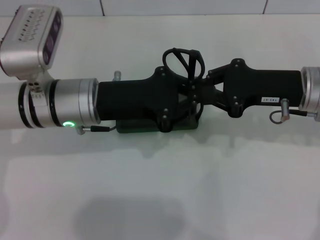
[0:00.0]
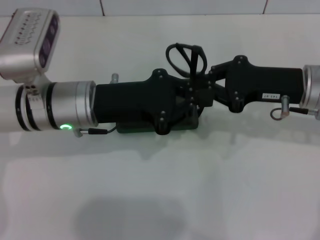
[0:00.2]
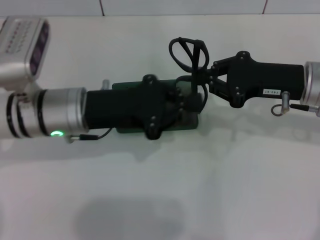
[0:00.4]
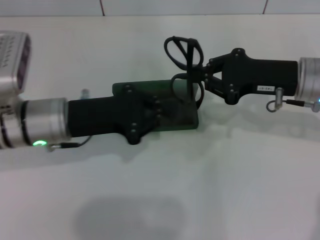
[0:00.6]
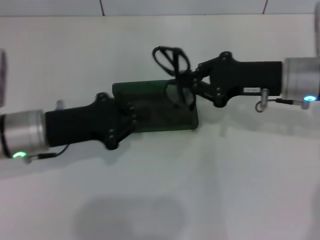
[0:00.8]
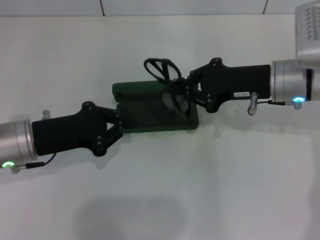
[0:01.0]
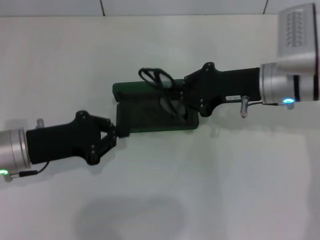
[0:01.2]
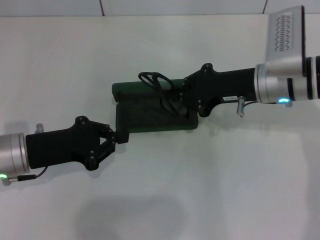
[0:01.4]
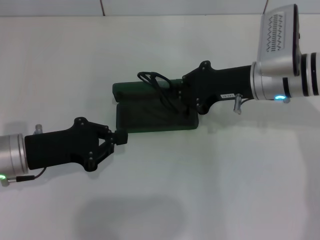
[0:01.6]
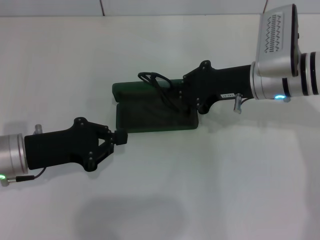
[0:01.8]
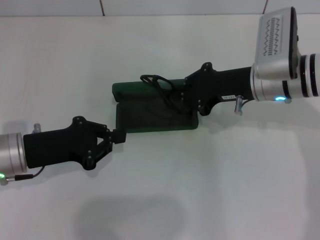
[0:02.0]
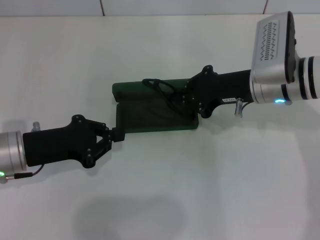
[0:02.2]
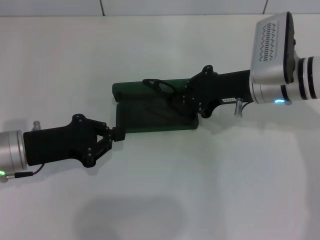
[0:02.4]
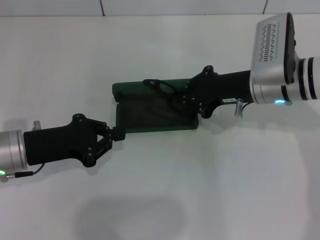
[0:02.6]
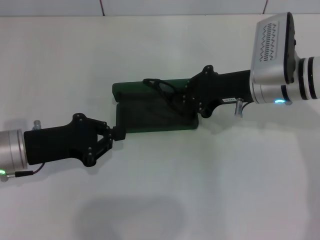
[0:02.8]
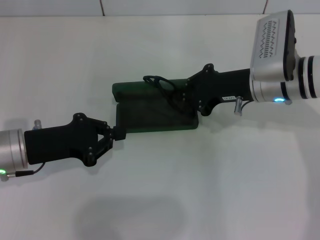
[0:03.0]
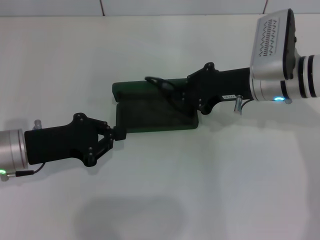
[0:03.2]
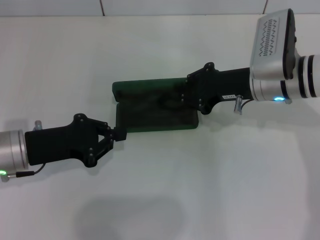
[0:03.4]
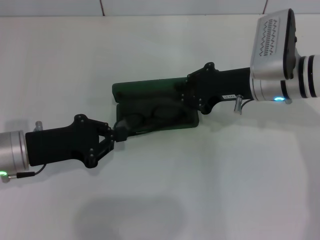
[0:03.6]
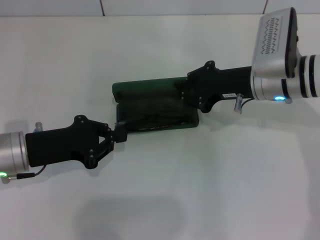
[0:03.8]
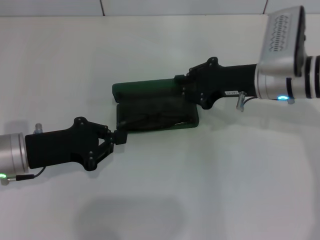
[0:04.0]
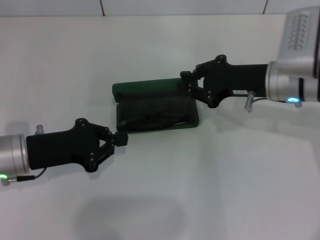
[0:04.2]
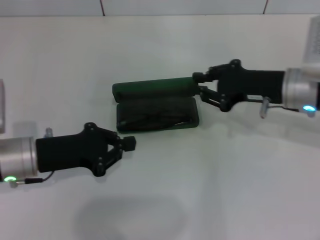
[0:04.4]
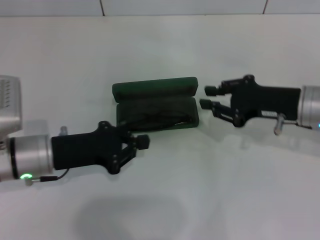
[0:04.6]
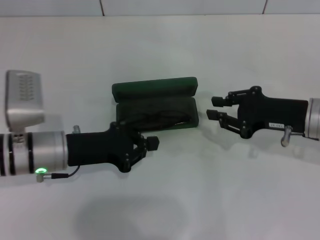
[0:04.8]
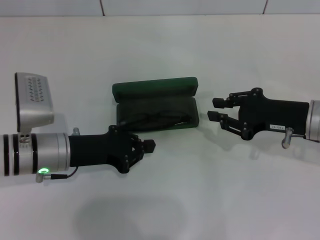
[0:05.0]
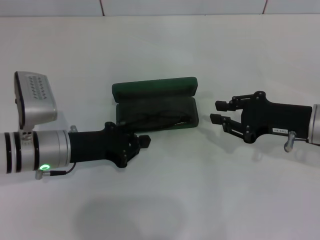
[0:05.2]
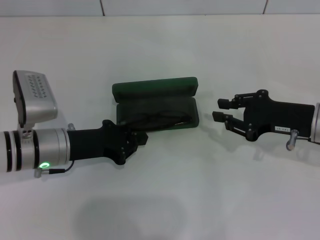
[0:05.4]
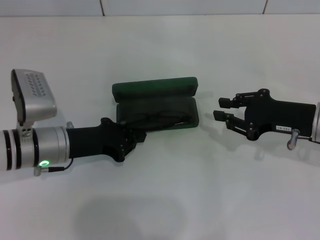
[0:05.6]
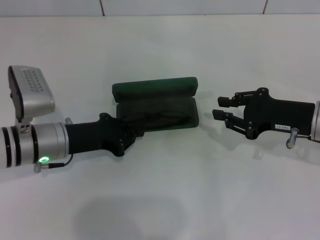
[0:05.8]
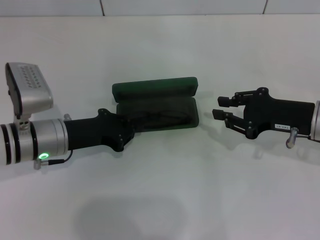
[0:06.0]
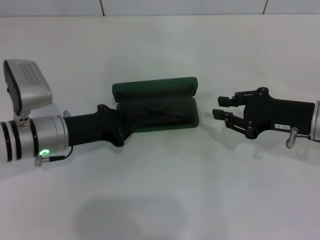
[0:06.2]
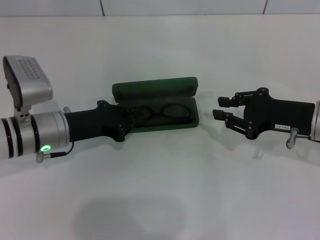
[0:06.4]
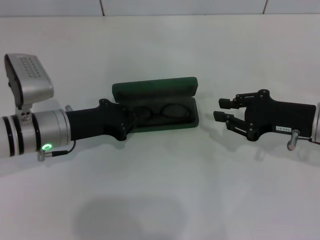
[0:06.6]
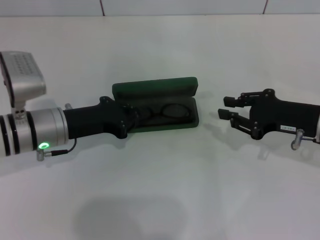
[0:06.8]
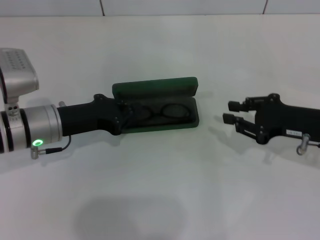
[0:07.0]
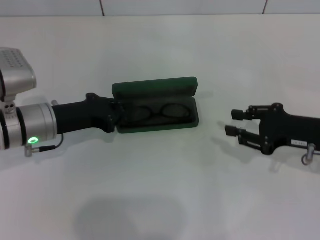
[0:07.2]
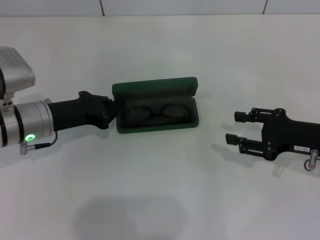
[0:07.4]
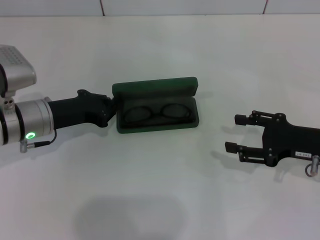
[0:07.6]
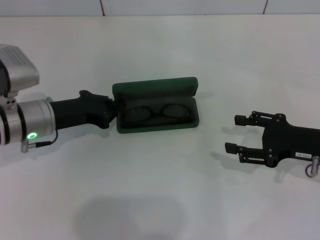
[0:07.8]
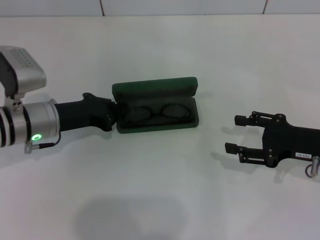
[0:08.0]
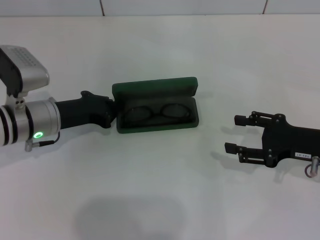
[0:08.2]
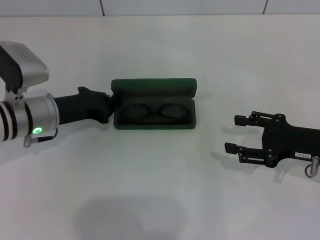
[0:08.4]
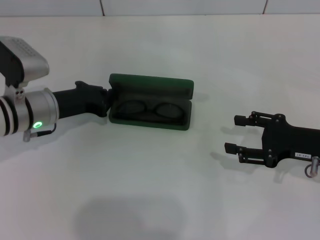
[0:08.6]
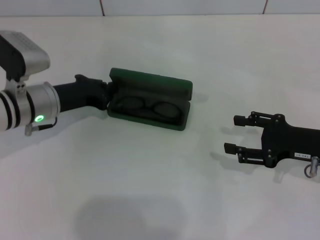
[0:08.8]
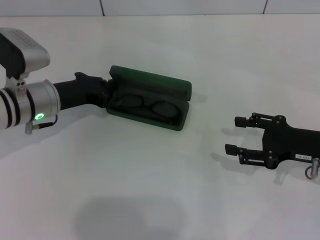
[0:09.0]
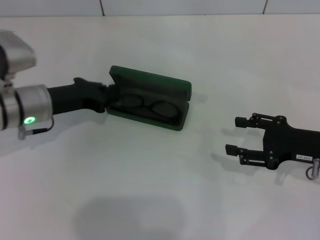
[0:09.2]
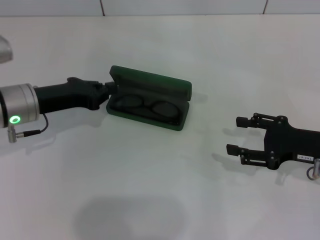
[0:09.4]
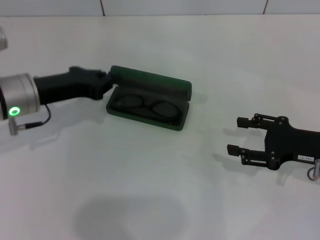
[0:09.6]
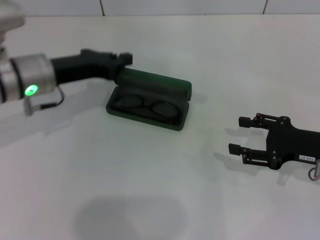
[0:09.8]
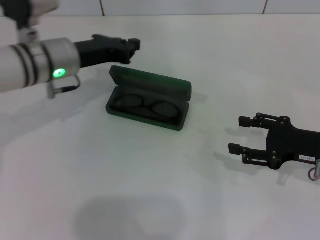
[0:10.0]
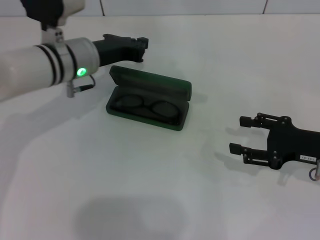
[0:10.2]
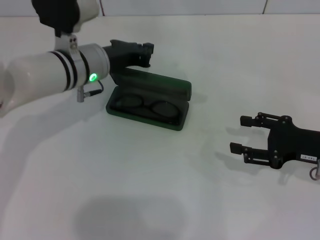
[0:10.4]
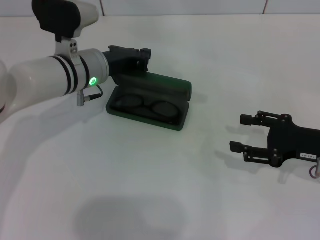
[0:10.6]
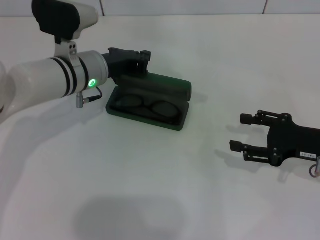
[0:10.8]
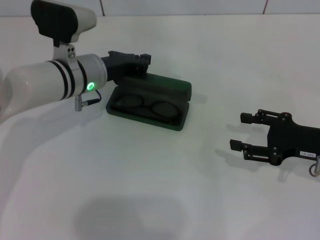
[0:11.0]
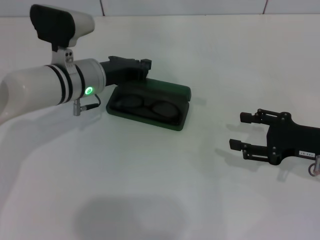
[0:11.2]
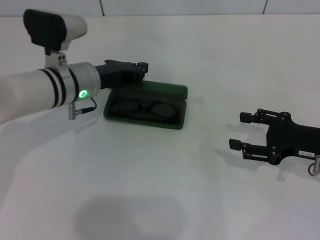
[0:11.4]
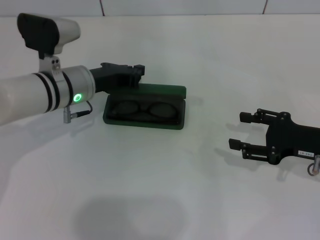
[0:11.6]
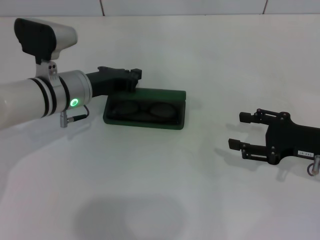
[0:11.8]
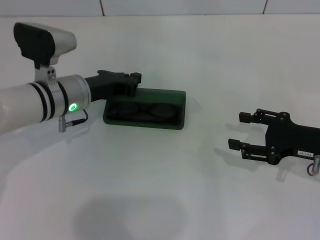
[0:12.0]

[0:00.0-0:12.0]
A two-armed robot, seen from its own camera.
Step, 0:00.2 to 0:04.2: Put the glasses into the case with your right hand.
0:00.0 to 0:01.6: The right gripper is displaced to the left by approximately 5 cm. Meanwhile the left gripper travels to the left, downward and backward by approximately 15 cm.
0:01.6 to 0:03.0: The two grippers keep their place.
0:03.0 to 0:04.4: The grippers move only a little.
0:04.4 to 0:06.0: The right gripper shifts by about 5 cm.
0:06.0 to 0:07.6: The right gripper opens.
0:07.6 to 0:09.0: There are only small adjustments of the grippers.
0:09.0 to 0:10.4: The left gripper moves to the right, approximately 10 cm.
0:10.4 to 0:12.0: The left gripper changes place by roughly 5 cm.

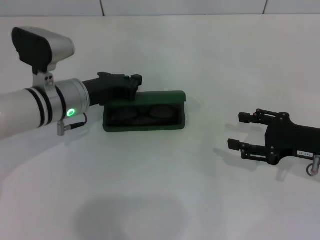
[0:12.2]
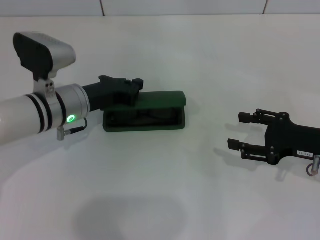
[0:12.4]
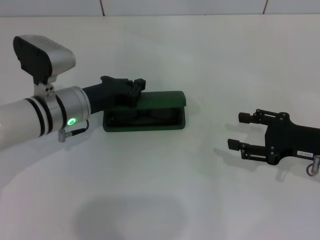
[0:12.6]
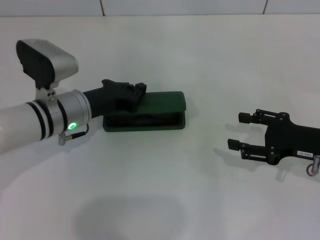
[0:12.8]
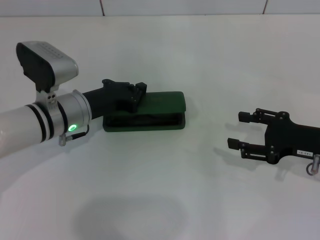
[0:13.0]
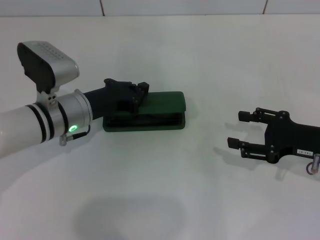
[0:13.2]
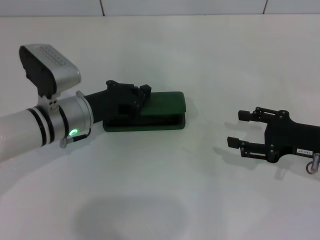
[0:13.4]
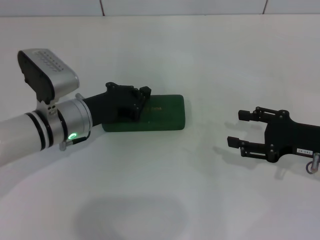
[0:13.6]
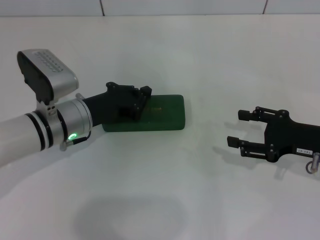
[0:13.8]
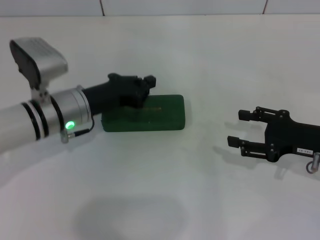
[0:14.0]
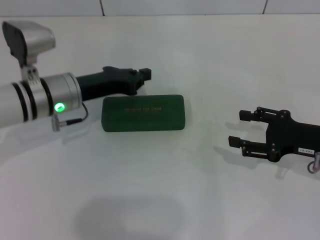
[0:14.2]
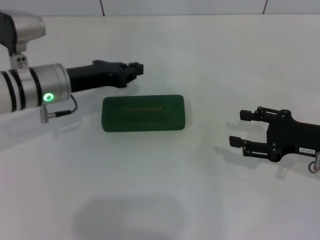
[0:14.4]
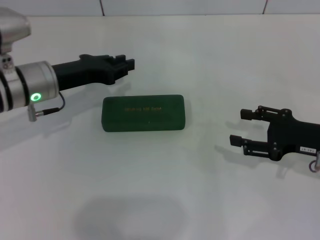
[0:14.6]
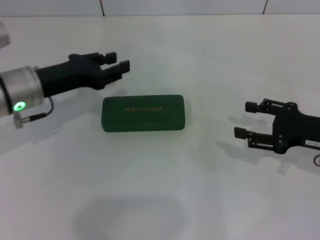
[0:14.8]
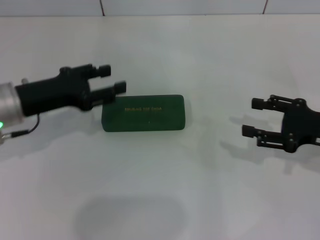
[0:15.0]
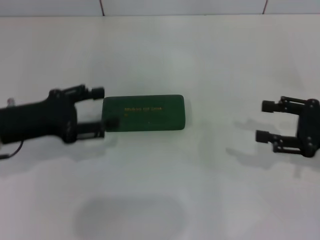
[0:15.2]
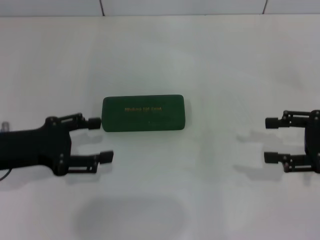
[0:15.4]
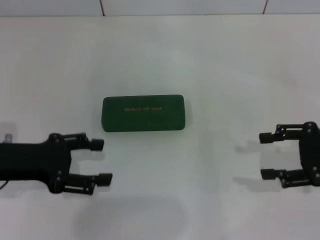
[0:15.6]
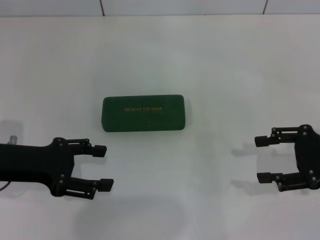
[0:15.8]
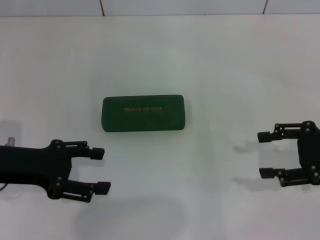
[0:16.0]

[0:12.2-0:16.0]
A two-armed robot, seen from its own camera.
0:12.2 to 0:13.4: The grippers make only small movements.
0:13.4 to 0:14.8: The left gripper shifts about 10 cm to the left and upward.
0:14.8 to 0:16.0: The left gripper travels backward by some 10 cm, and opens up.

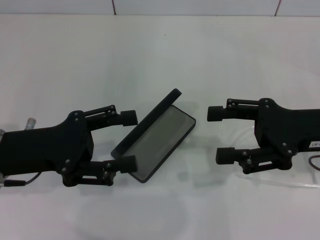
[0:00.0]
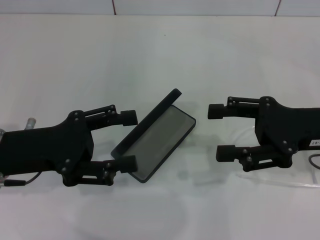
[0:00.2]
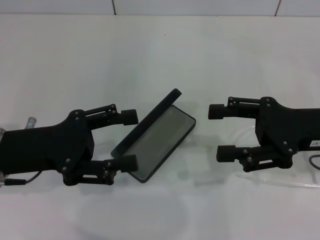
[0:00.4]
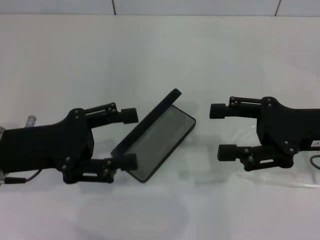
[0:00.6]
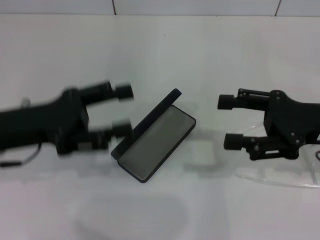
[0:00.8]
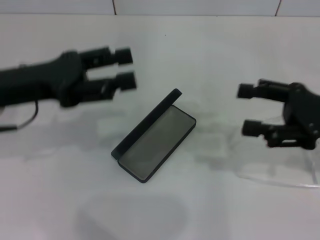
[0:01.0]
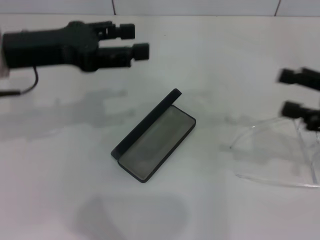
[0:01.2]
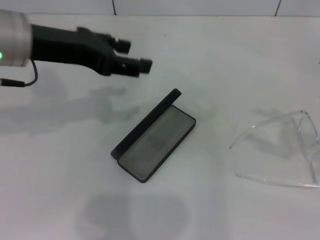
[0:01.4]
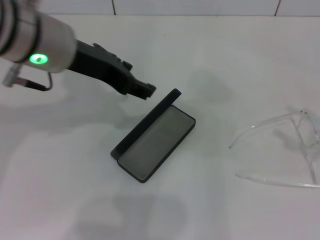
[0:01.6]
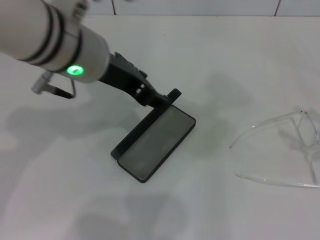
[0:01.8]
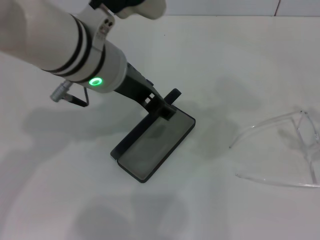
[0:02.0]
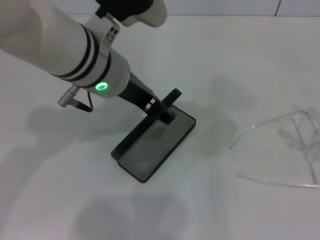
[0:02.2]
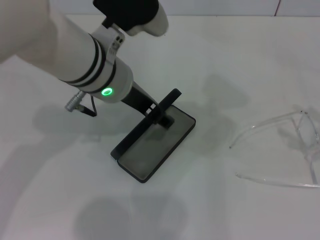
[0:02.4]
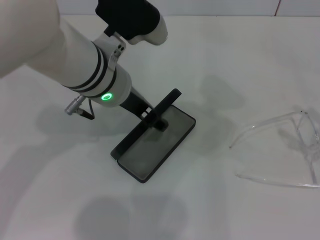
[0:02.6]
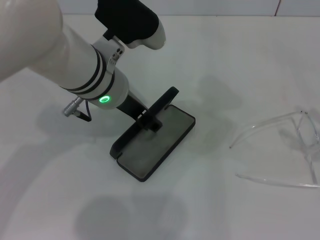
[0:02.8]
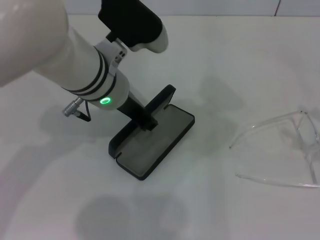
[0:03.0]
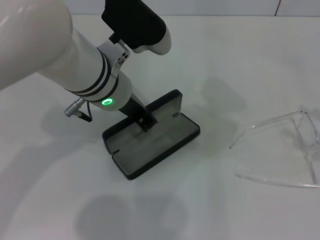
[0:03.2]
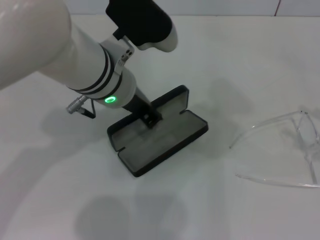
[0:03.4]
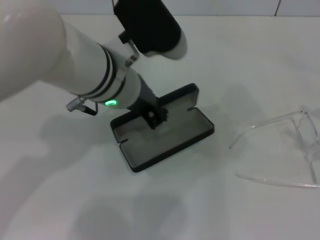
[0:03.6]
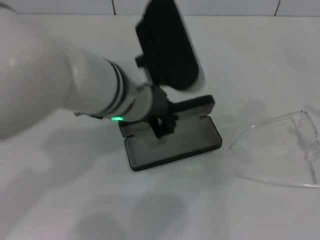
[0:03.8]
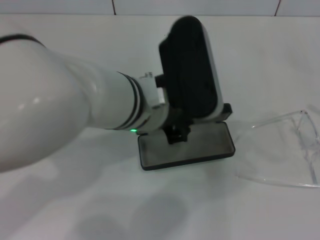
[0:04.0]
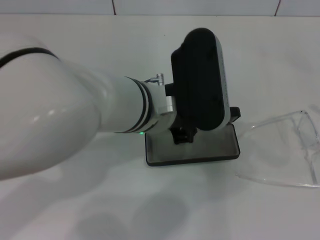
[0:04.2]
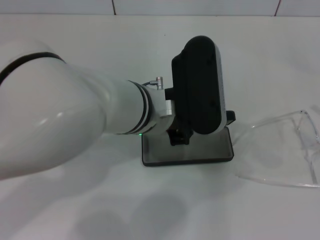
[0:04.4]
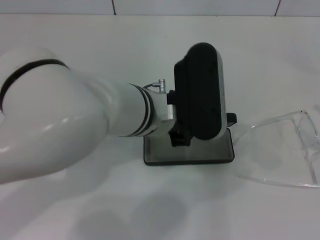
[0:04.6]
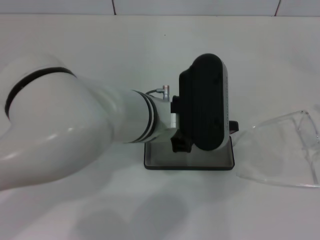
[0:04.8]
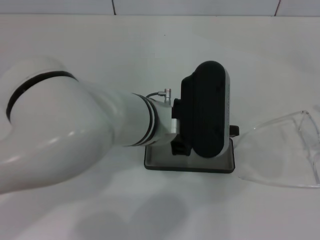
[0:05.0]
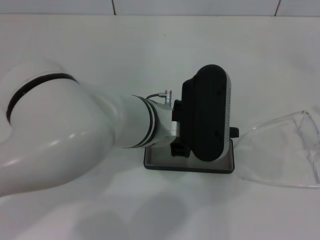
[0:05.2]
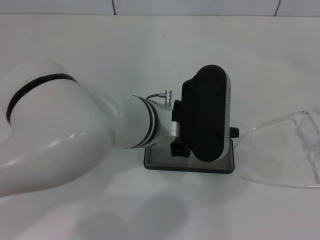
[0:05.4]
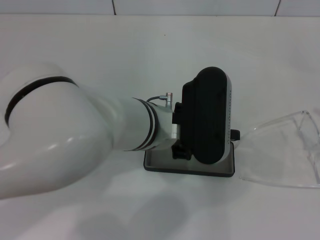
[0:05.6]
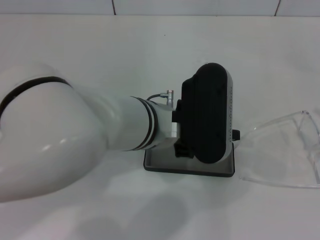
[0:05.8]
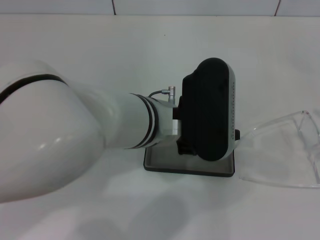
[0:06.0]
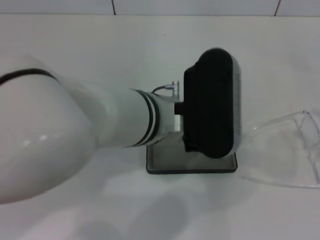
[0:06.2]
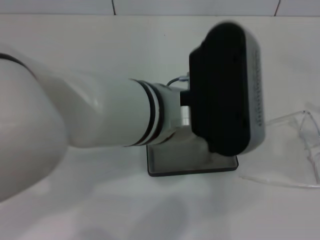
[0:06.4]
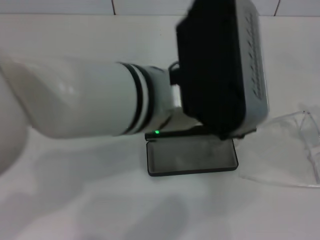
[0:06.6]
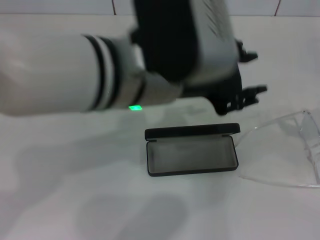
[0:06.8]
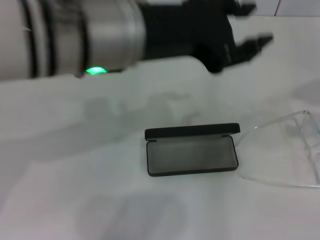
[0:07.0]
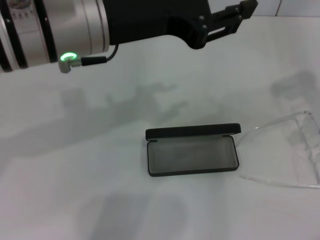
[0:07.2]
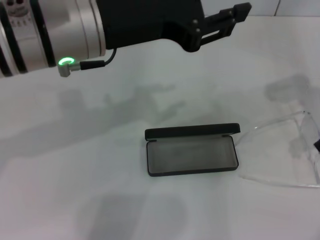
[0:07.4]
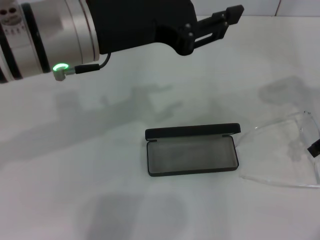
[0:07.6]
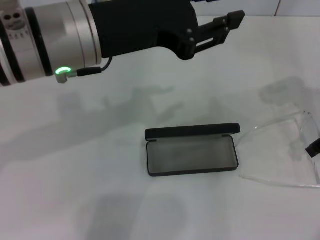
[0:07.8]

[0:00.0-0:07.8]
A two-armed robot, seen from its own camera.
Step, 0:00.0 to 0:03.0: Grab the glasses case with your left hand.
Step, 0:03.2 to 0:05.6: Place the glasses case in the center of the table with your left hand.
0:00.0 to 0:01.6: The right gripper is displaced to the right by roughly 15 cm. Meanwhile the left gripper moves upward, to the right and forward, roughly 20 cm.
0:01.6 to 0:03.2: The left gripper travels downward and to the right by roughly 10 cm, and closes.
0:03.2 to 0:04.6: The left gripper shifts by approximately 5 cm.
0:04.6 to 0:06.2: The left gripper opens up.
0:06.2 to 0:07.8: The right gripper goes approximately 20 cm forward and to the left. Meanwhile the left gripper is displaced to the left and upward by roughly 10 cm.
